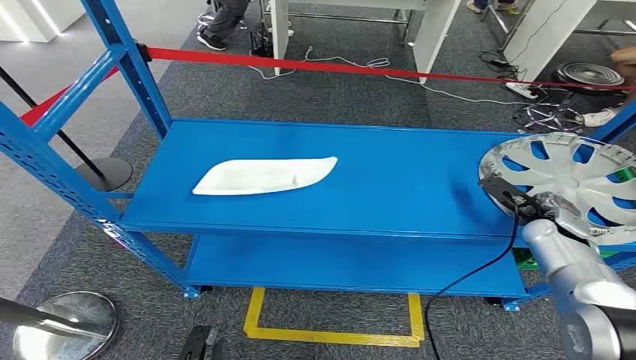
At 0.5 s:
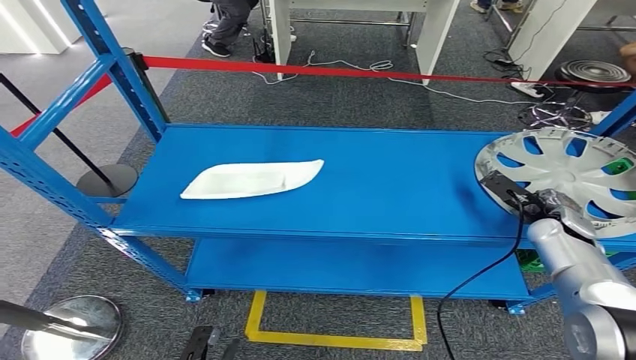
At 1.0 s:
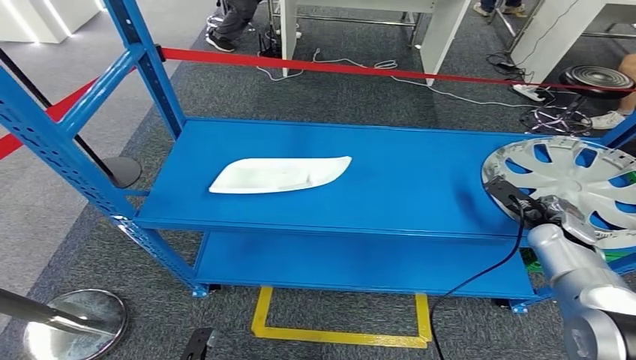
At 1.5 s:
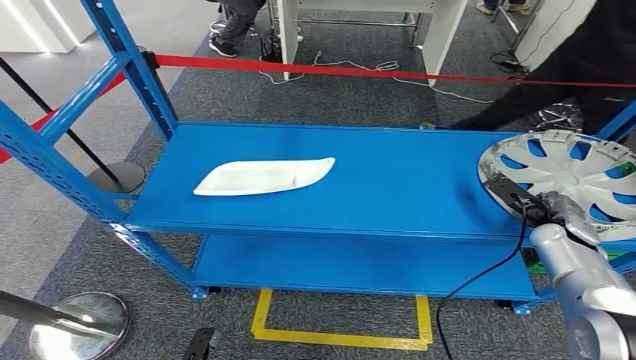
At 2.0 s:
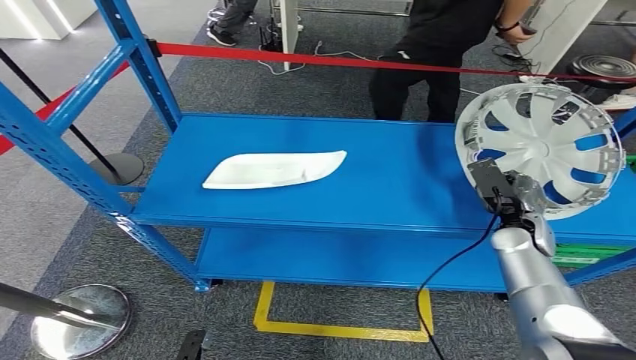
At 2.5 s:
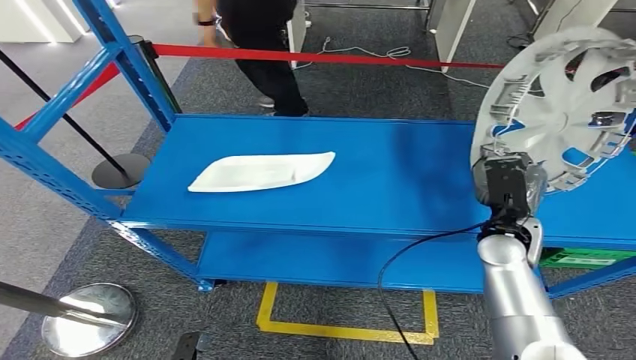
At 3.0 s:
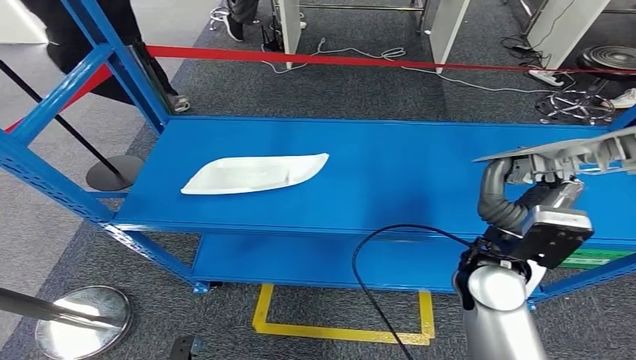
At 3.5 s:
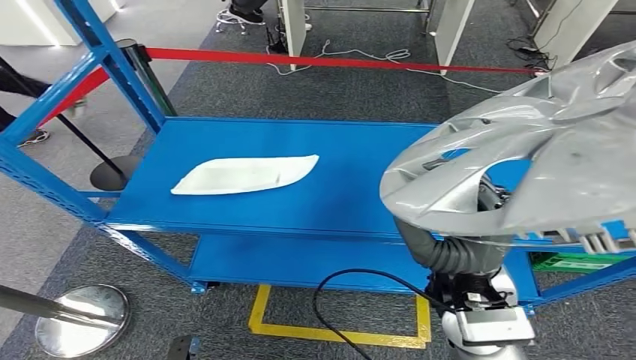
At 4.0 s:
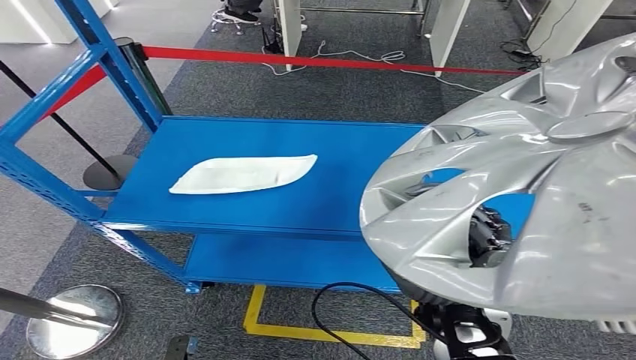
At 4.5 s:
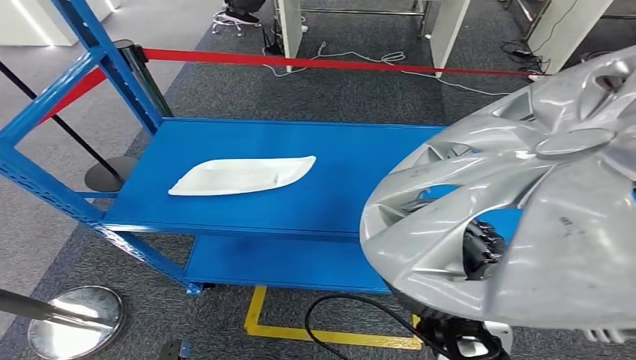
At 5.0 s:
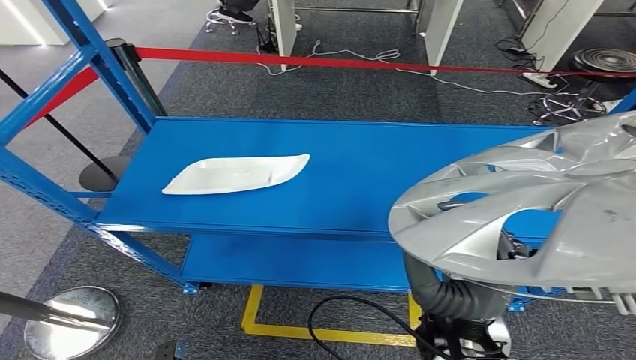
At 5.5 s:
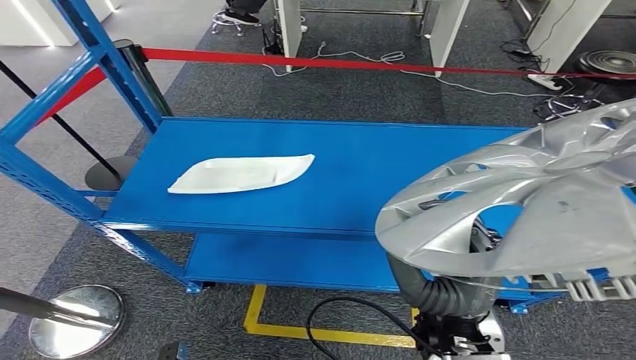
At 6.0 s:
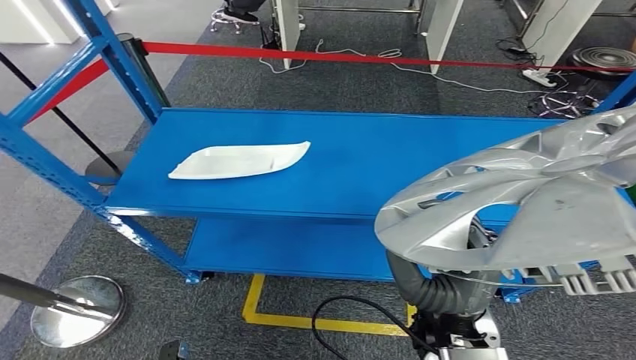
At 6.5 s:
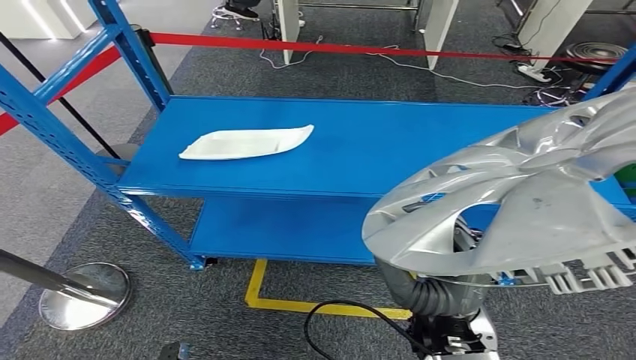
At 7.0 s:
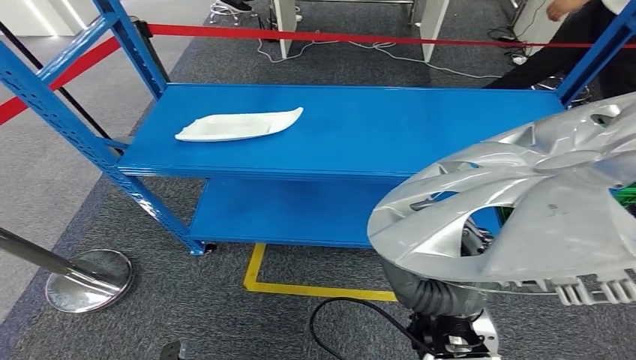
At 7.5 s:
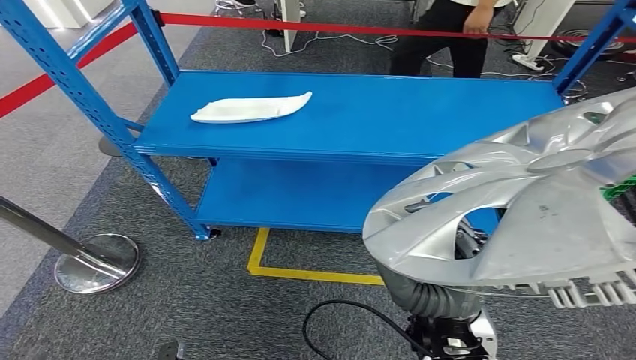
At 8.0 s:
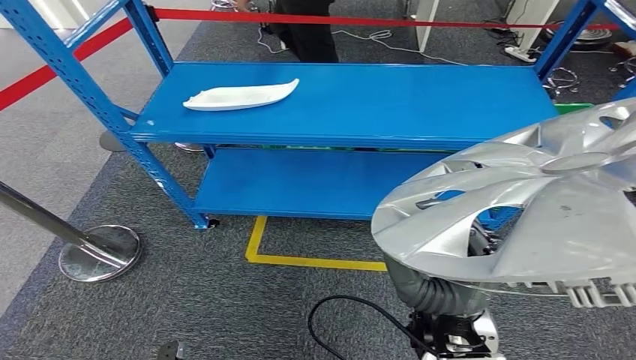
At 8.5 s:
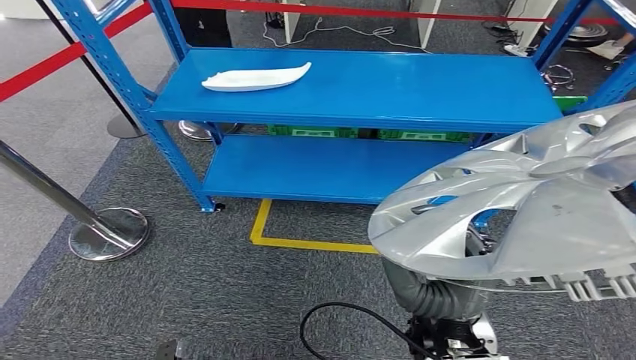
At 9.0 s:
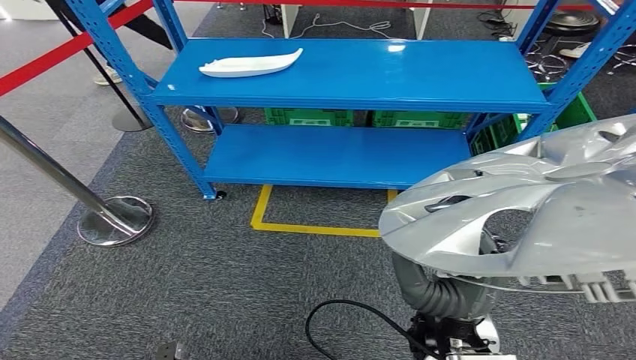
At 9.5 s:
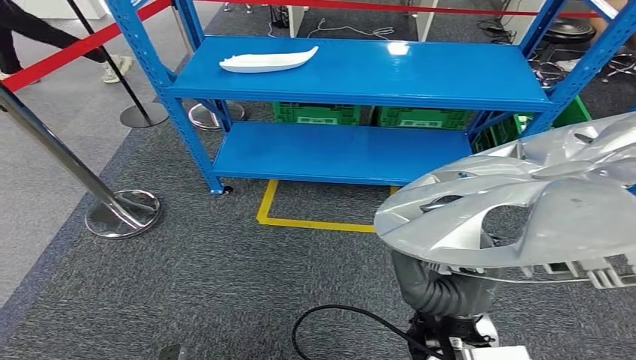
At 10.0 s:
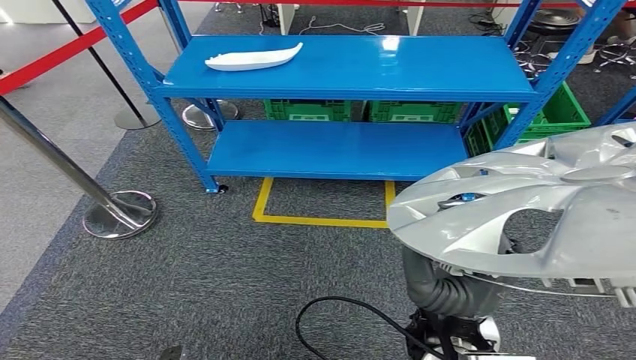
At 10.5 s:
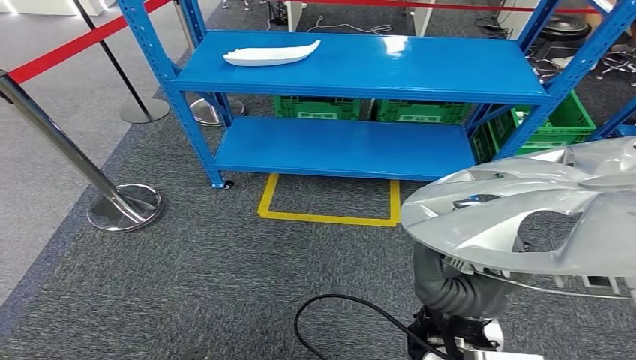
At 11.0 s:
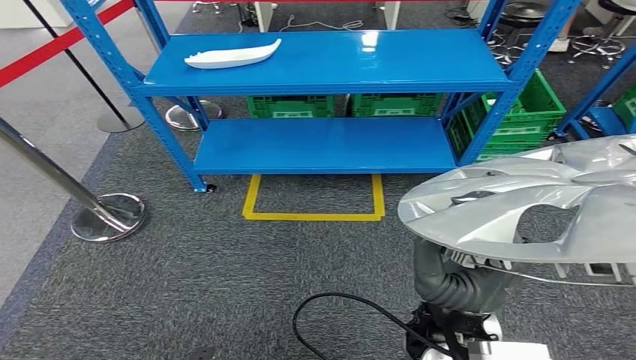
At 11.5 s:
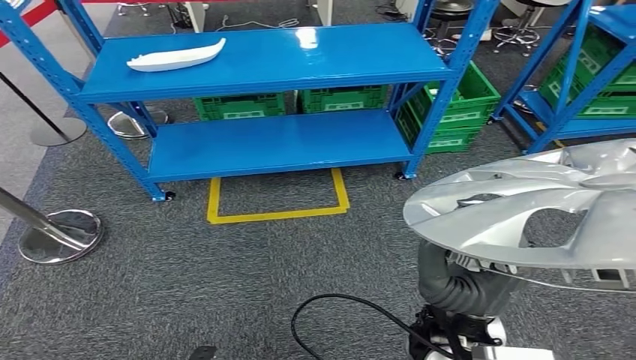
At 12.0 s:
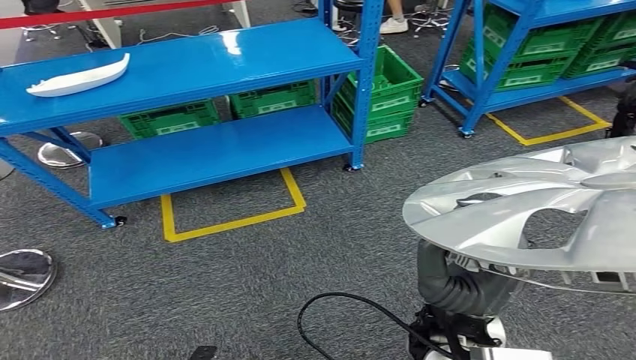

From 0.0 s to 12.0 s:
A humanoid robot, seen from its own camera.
Step, from 0.0 s to 8.5 s: Pick up the small component from the shelf.

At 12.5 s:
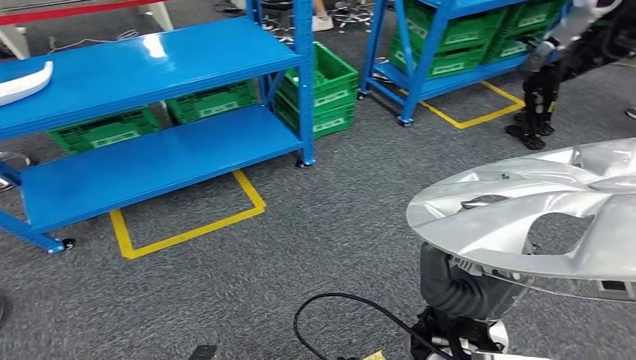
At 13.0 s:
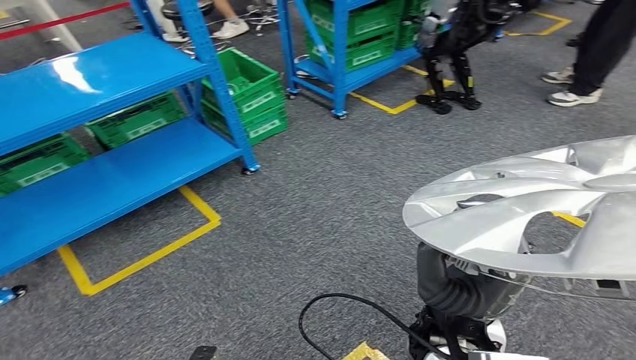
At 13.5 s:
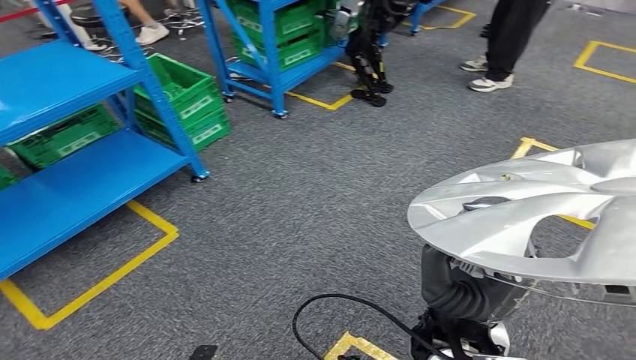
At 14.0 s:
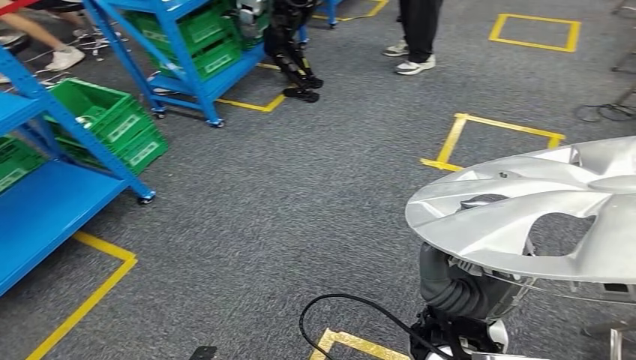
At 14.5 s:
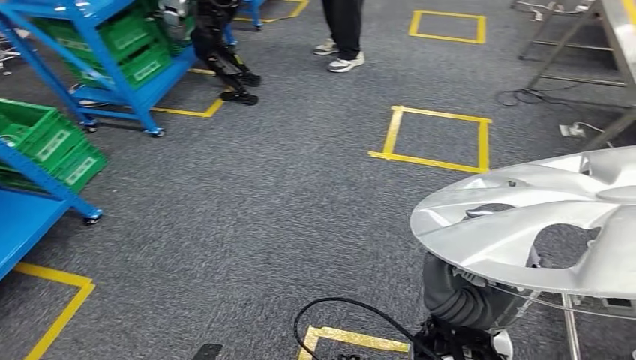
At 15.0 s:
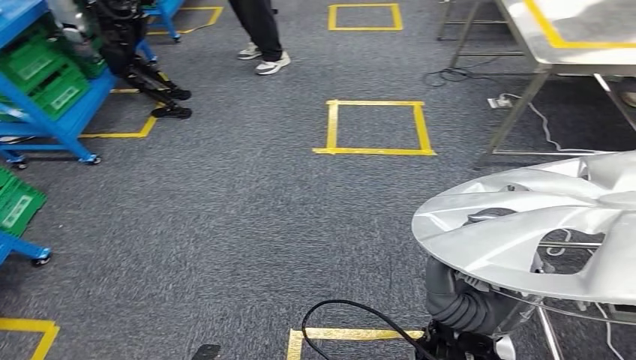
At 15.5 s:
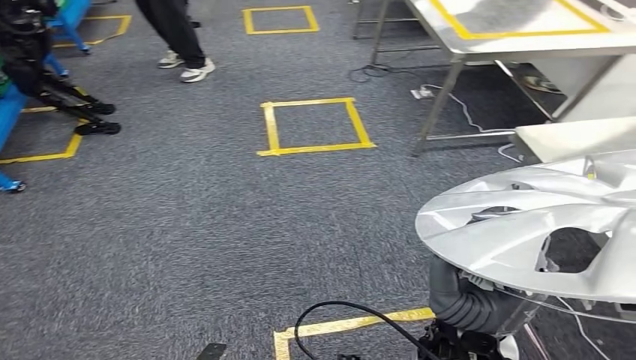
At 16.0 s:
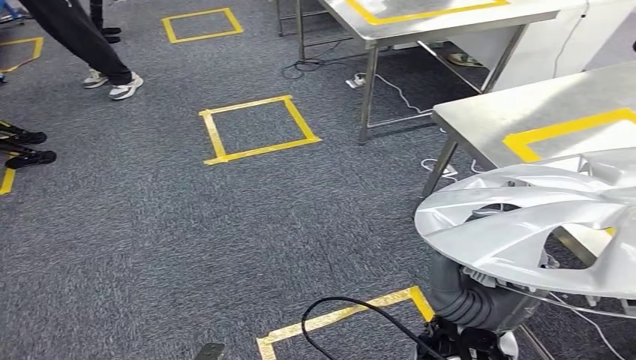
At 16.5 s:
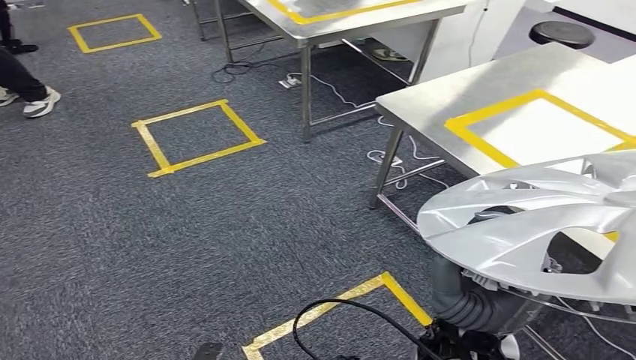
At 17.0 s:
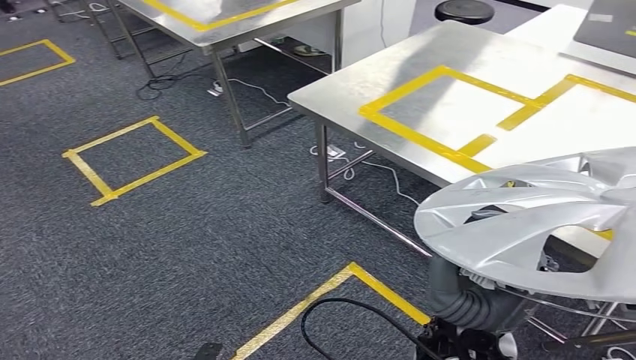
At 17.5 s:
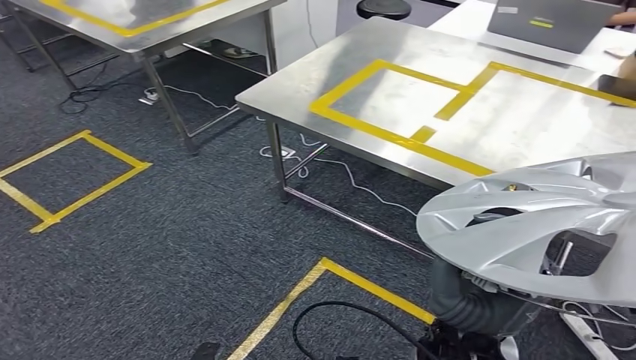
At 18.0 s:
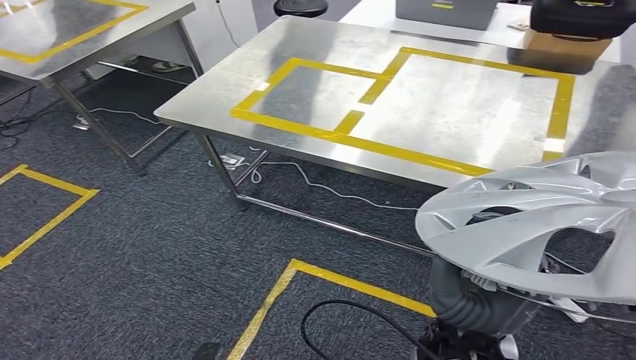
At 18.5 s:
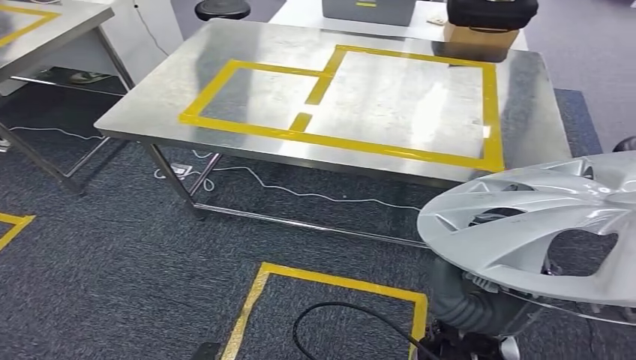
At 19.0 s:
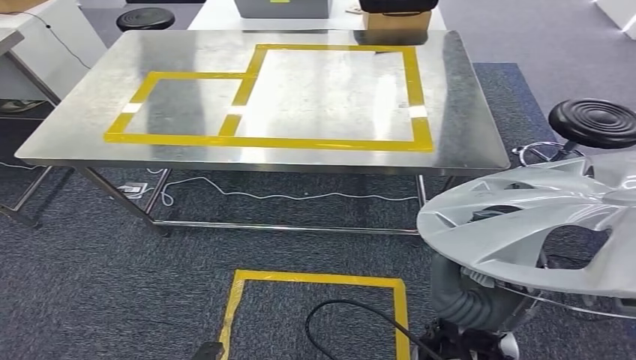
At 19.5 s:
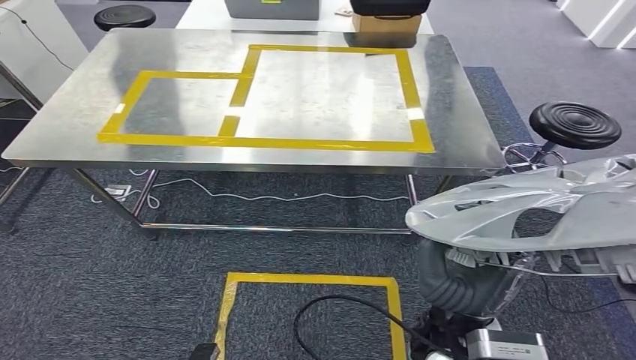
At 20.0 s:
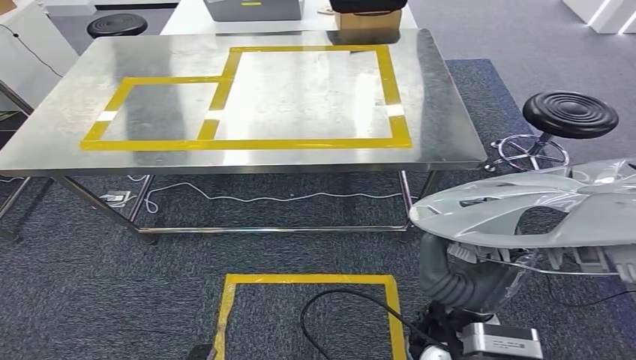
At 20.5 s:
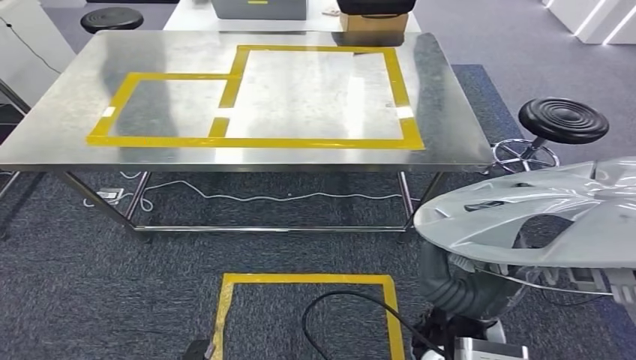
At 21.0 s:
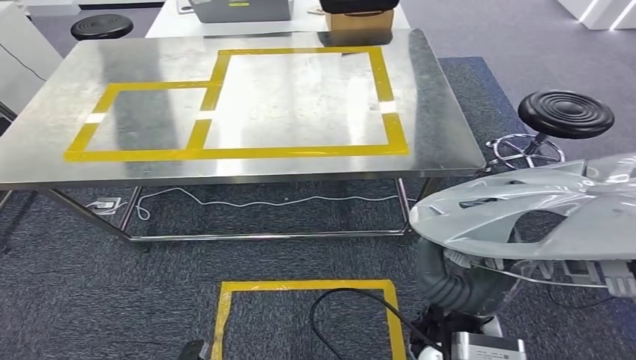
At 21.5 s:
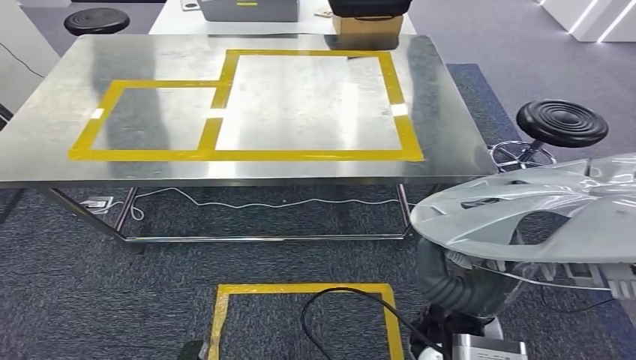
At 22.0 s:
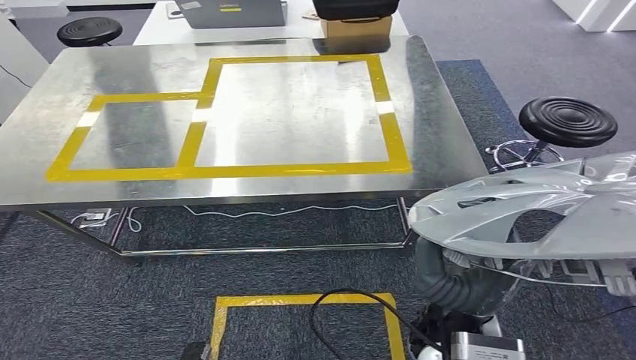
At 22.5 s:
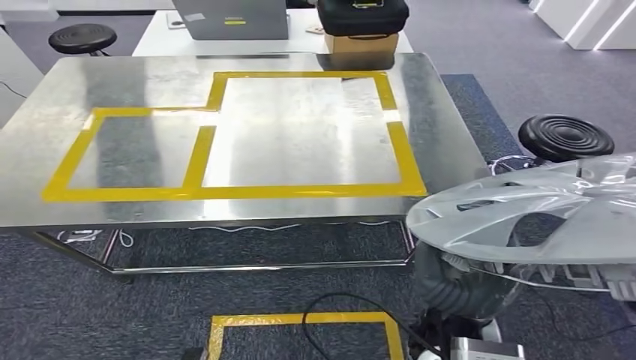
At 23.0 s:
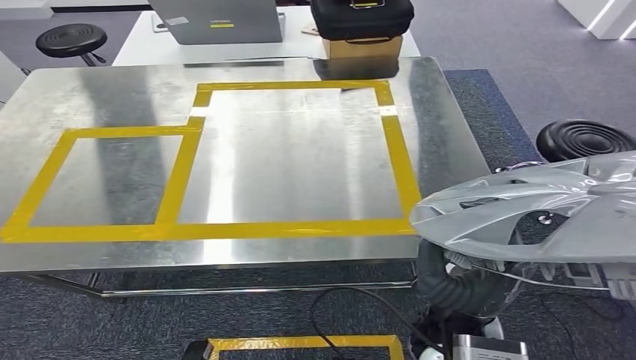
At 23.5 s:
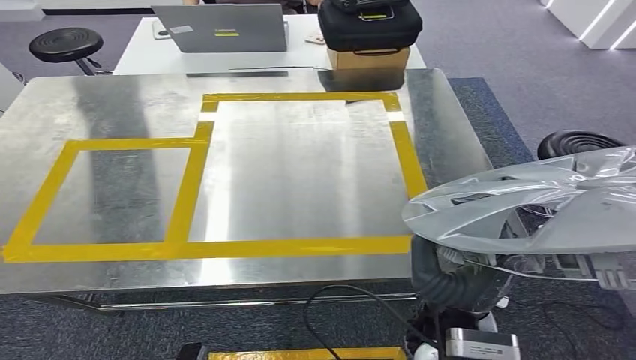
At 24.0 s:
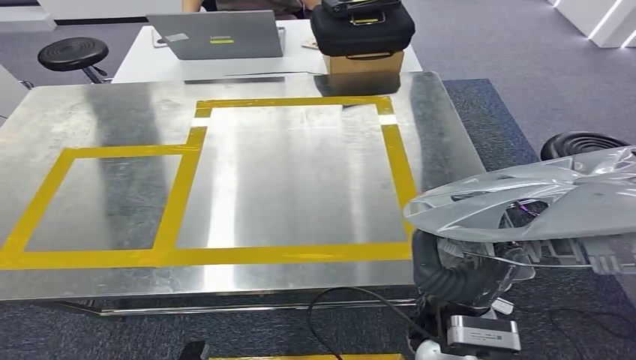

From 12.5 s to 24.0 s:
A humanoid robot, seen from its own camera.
Step, from 12.5 s to 19.5 s: Move the small component to the workbench.
